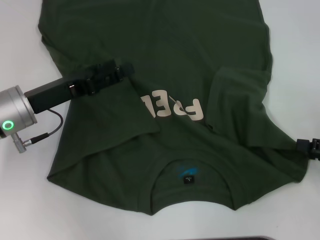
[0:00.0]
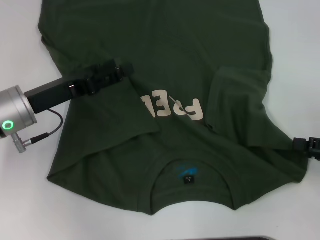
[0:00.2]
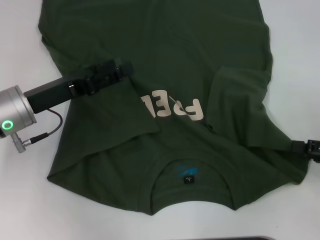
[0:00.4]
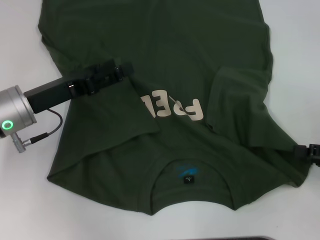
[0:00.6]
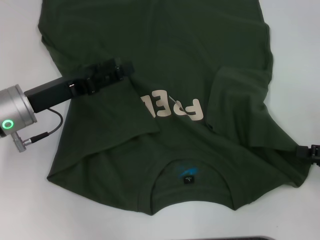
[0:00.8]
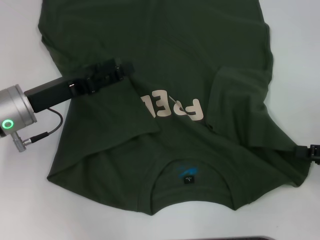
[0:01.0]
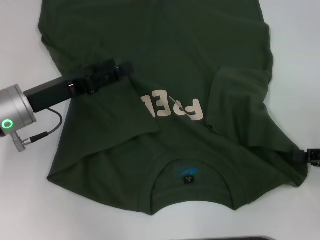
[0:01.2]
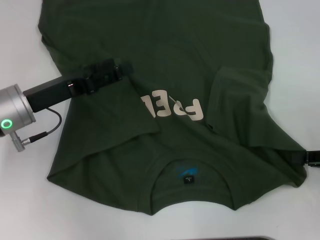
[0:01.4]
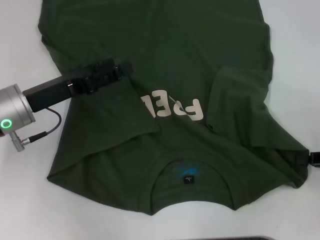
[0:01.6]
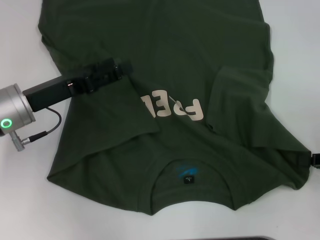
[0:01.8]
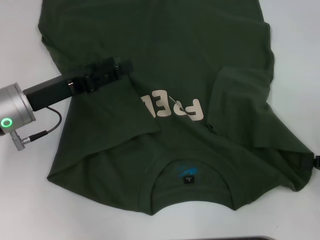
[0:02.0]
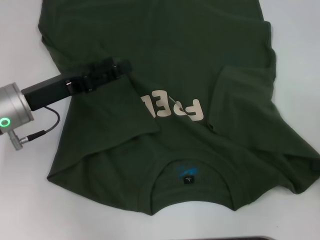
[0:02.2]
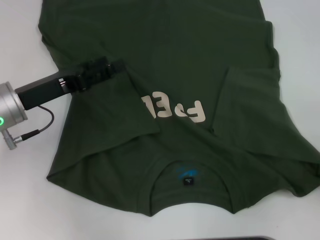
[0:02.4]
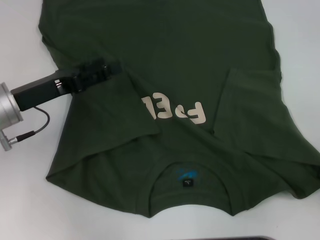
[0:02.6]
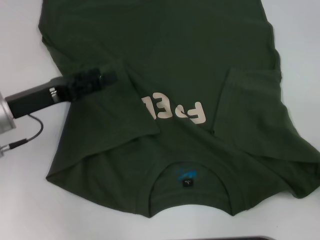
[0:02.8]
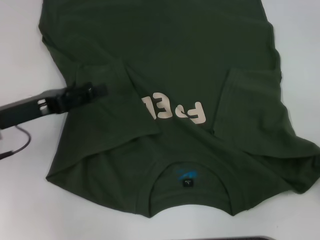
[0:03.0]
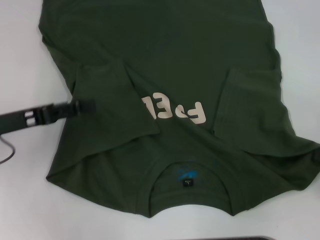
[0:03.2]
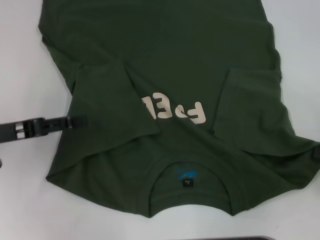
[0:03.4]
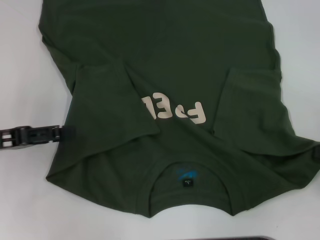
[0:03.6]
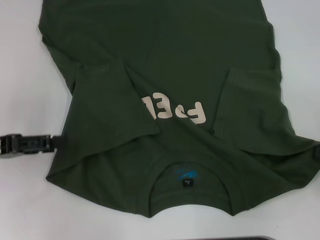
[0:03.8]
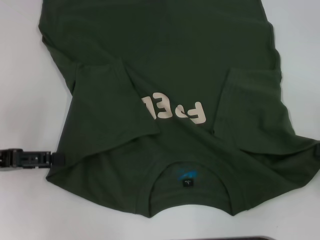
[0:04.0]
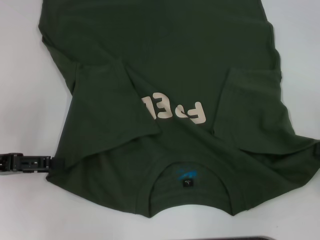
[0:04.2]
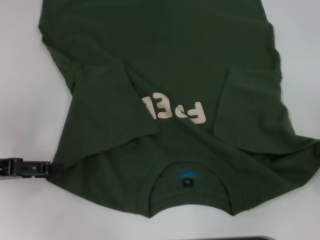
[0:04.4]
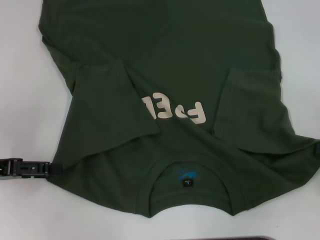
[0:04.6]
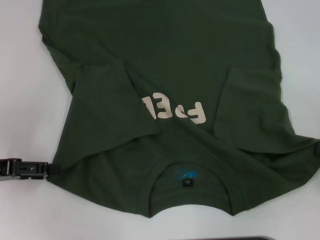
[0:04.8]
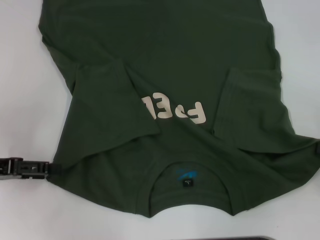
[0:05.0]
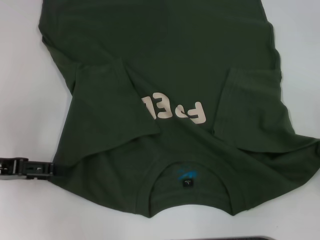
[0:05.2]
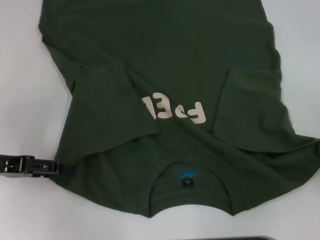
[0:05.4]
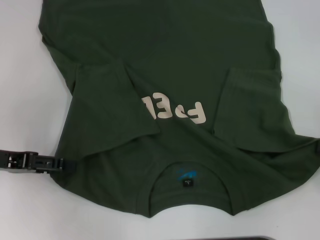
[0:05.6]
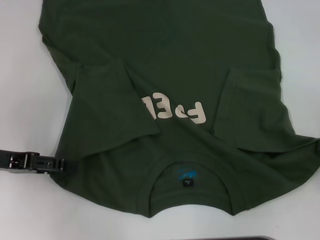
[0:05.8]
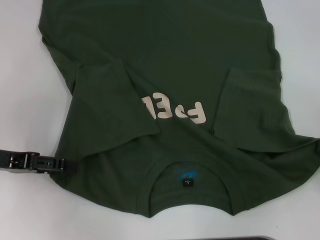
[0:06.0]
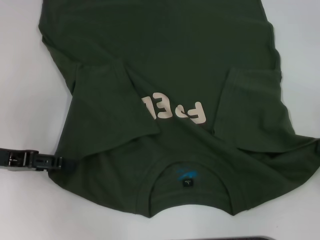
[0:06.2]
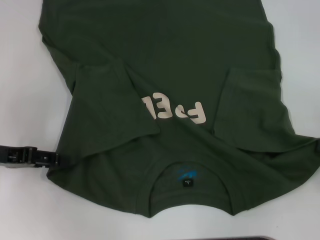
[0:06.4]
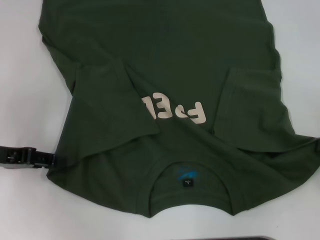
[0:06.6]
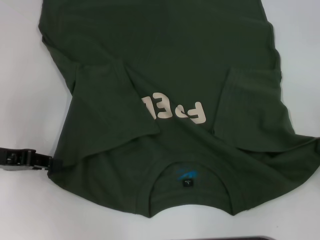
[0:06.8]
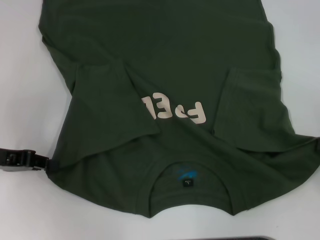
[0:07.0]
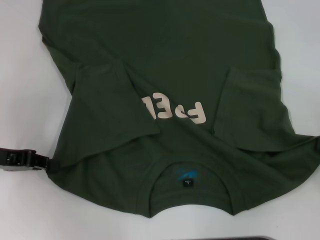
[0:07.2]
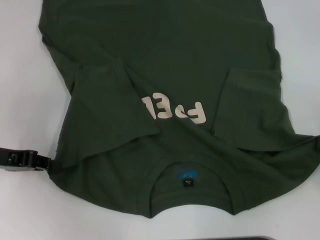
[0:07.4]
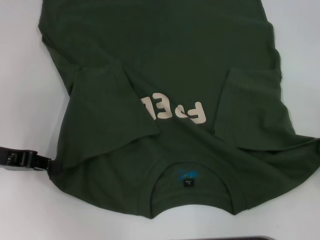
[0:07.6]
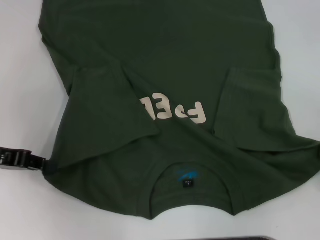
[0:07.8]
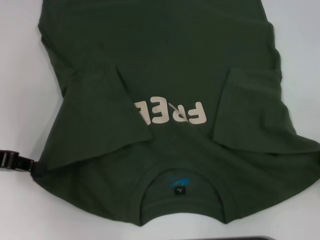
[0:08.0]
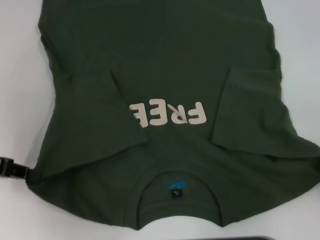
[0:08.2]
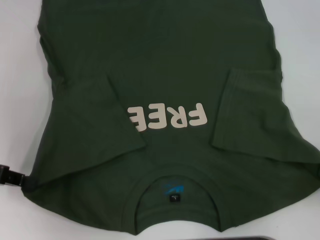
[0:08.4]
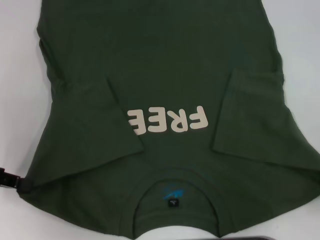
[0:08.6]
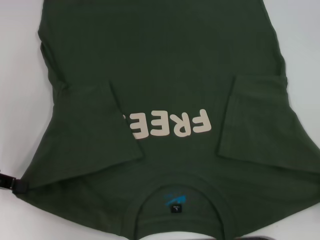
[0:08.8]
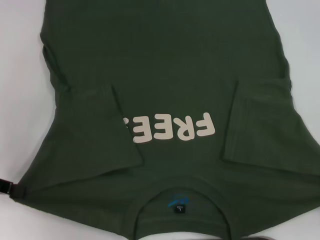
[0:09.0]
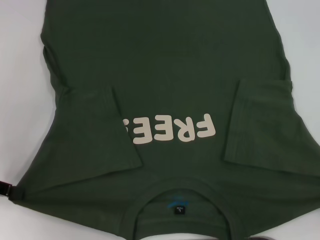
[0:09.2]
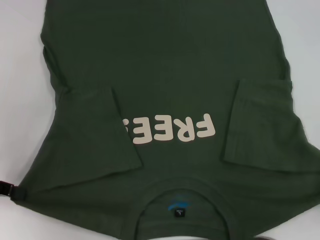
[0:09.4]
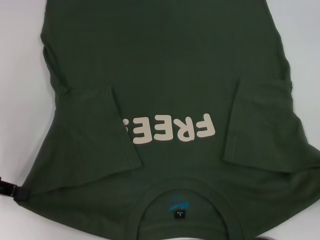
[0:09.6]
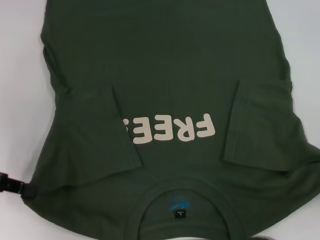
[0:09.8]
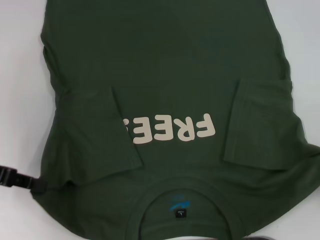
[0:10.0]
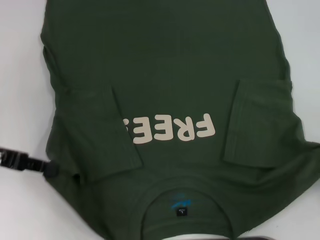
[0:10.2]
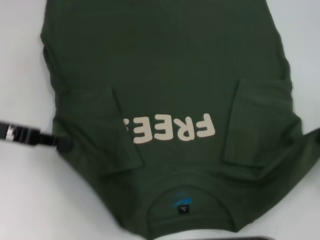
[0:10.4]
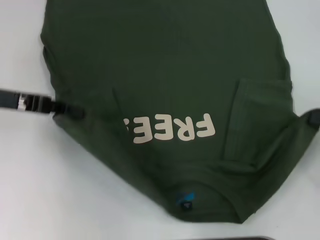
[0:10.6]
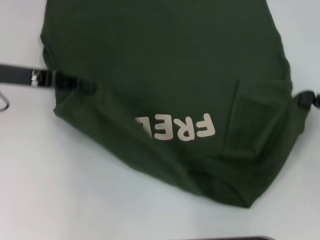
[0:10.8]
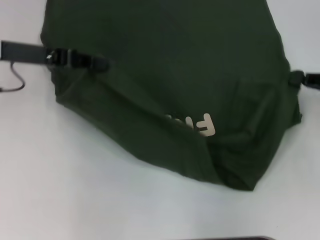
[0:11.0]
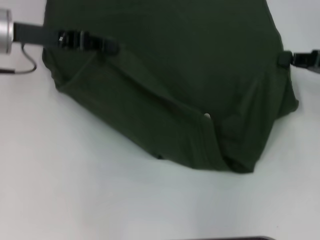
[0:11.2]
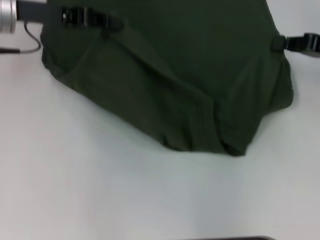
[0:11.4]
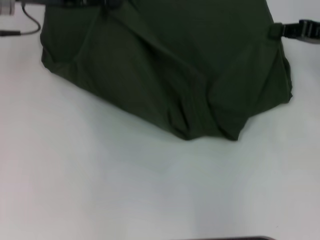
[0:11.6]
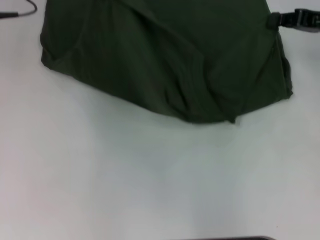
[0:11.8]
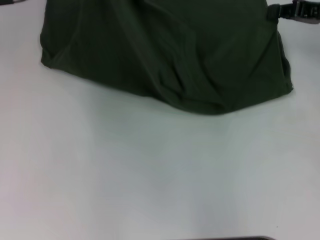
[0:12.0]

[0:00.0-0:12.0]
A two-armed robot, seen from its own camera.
Step, 0:00.0 to 0:04.8: Grab the bottom right corner with your right hand.
Step, 0:05.0 to 0:08.2: Grab the bottom left corner with your left hand.
0:00.0 to 0:01.6: The right gripper closes.
0:01.6 to 0:03.0: The grippers stay close to where they were, moving slightly.
0:03.0 to 0:04.4: The left gripper heads to the left, covering roughly 5 cm.
0:04.4 to 0:06.0: The grippers stay close to where they were, moving slightly.
0:06.0 to 0:07.6: The left gripper closes up.
0:07.6 to 0:09.0: The left gripper moves roughly 5 cm. The right gripper shifts about 10 cm backward.
0:09.0 to 0:10.4: The right gripper moves forward, about 5 cm. Meanwhile the left gripper travels to the right by approximately 5 cm.
0:10.4 to 0:12.0: The left gripper goes roughly 15 cm forward, upward and to the right, while the right gripper goes about 20 cm forward.

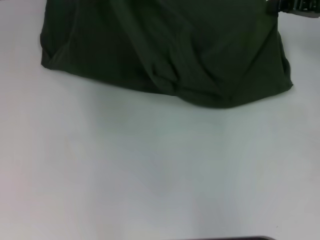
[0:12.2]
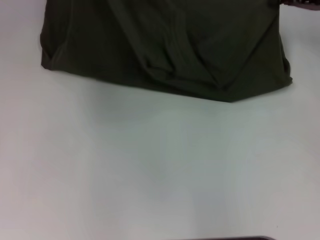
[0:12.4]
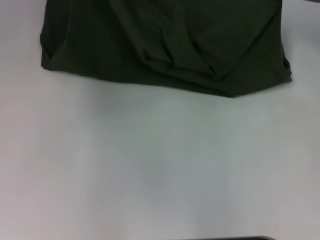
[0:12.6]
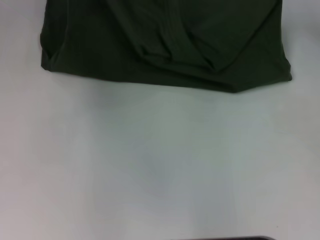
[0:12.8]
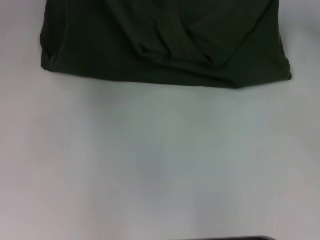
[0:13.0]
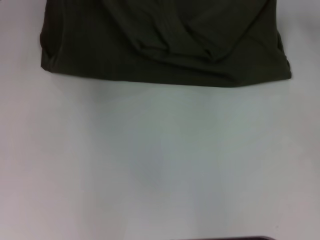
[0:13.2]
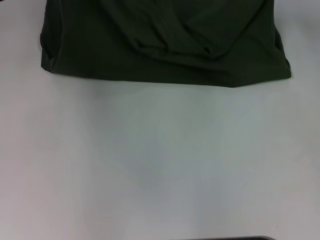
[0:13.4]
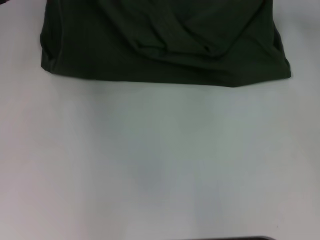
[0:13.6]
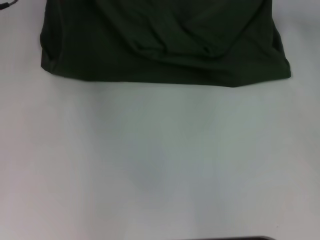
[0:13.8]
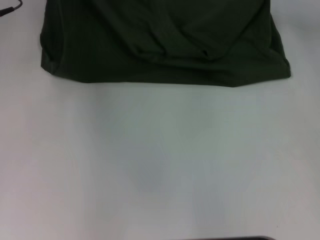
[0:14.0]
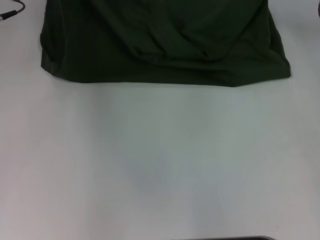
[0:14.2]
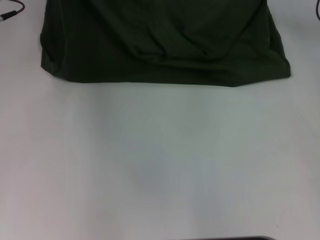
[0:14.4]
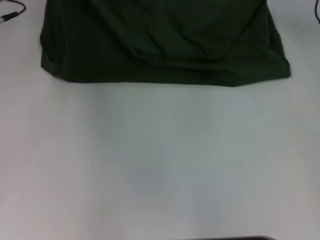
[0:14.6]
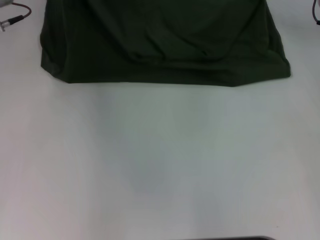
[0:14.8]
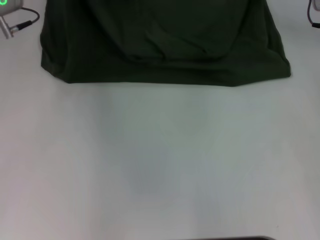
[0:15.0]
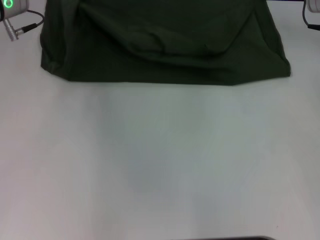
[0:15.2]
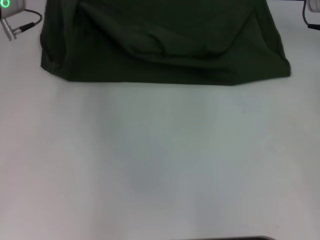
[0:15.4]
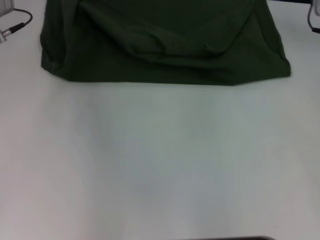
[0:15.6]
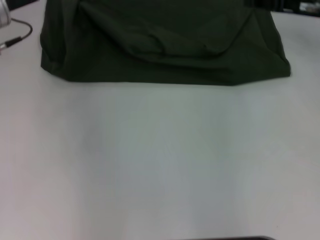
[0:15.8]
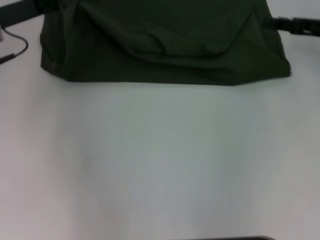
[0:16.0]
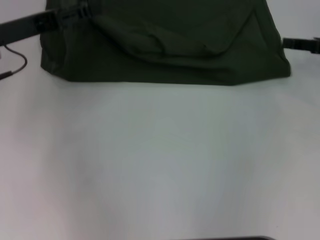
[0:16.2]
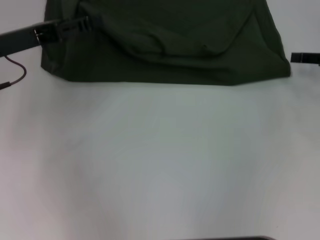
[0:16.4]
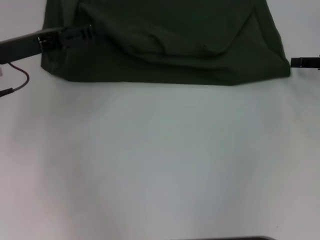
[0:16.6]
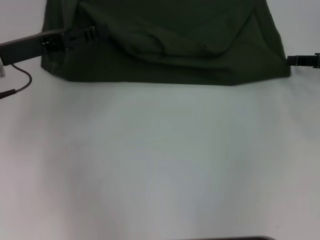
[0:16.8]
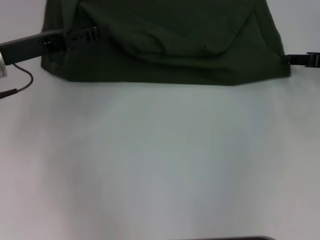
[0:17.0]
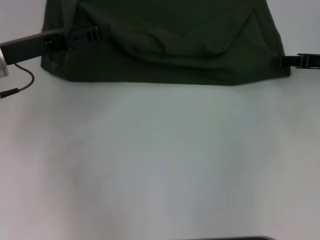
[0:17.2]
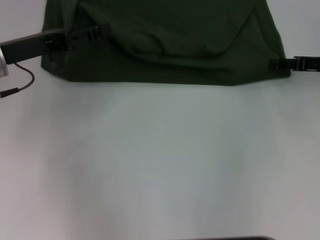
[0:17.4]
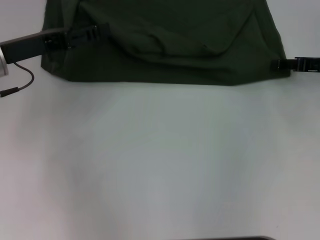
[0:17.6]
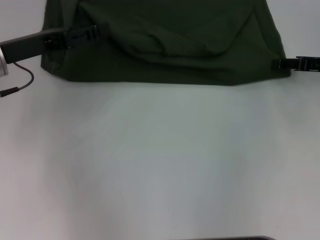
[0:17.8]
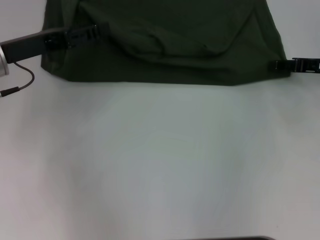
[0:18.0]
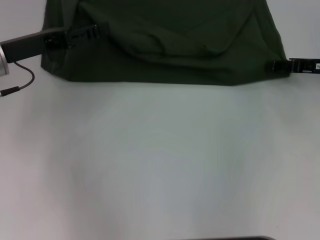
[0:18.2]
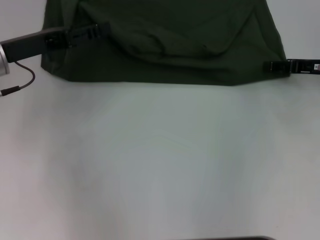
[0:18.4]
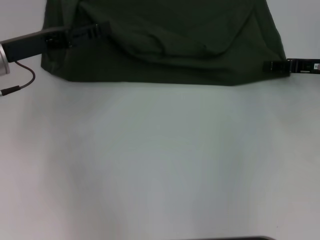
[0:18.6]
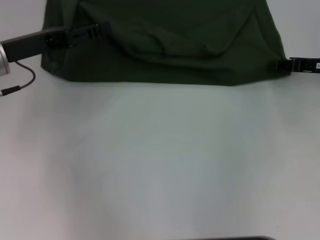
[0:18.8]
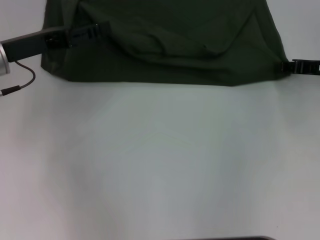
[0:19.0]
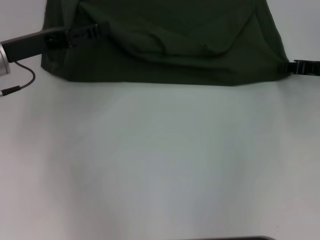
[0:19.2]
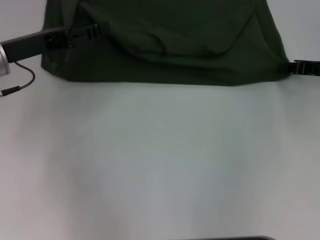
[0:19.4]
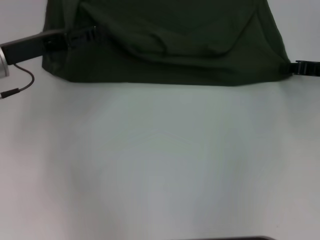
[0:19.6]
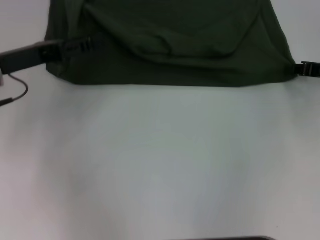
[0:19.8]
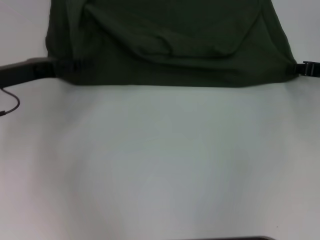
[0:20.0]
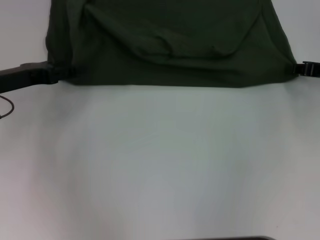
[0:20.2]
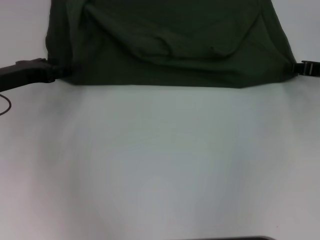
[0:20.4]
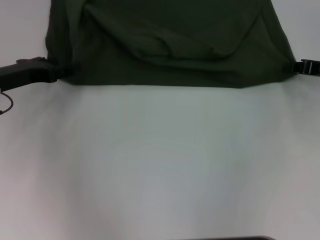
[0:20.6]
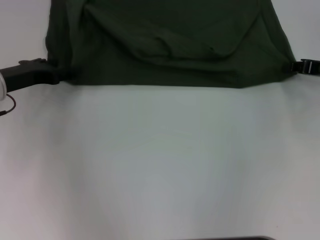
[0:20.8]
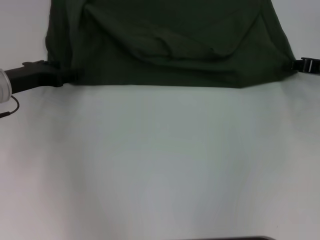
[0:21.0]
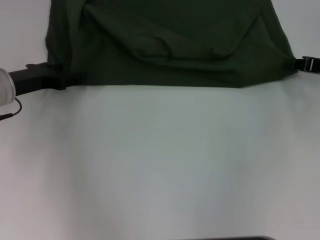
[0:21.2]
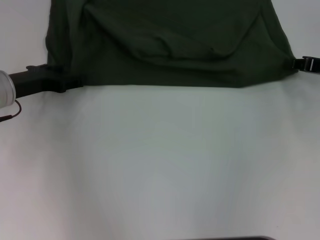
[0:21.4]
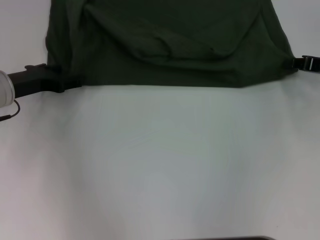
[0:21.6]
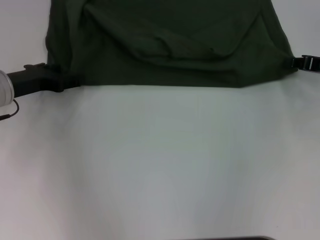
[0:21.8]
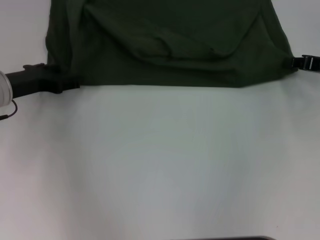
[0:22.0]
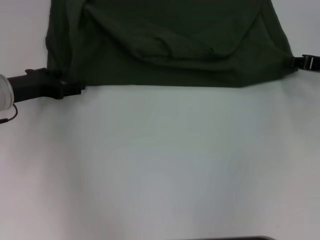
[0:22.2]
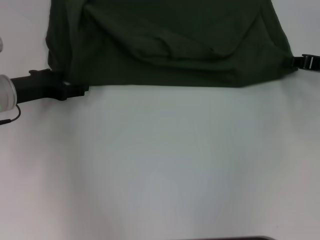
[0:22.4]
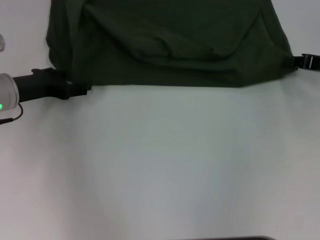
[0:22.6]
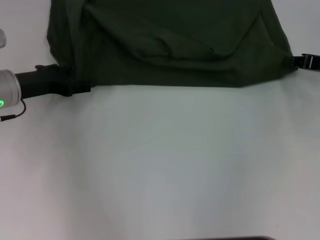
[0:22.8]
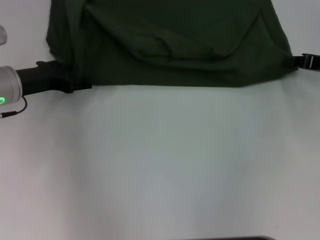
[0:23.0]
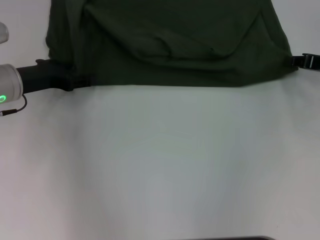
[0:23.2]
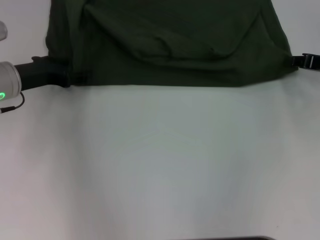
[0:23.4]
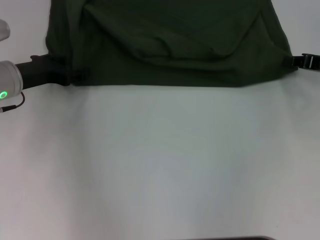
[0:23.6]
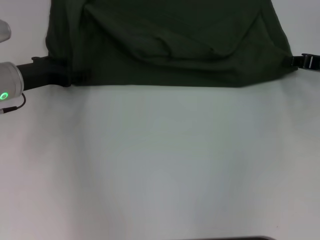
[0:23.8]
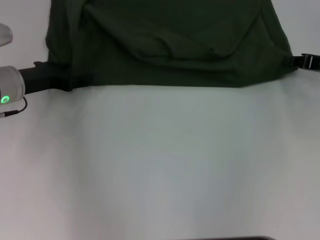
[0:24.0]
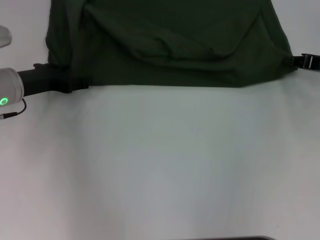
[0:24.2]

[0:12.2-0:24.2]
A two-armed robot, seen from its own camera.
Step, 0:12.2 to 0:15.6: Fold the clothes with your left hand.
Step, 0:12.2 to 0:15.6: Fold the clothes with your right hand.
0:12.2 to 0:13.8: The grippers stay close to where they were, moving slightly.
0:13.8 to 0:15.2: The grippers move only a little.
0:15.2 to 0:16.6: The right gripper moves to the right and backward, about 15 cm, and opens up, while the left gripper is displaced backward by about 10 cm, and opens up.
0:16.6 to 0:18.2: There are only small adjustments of the grippers.
0:18.2 to 0:19.8: The right gripper closes up.
0:19.8 to 0:21.2: The left gripper ends up roughly 5 cm from where it was.
0:21.2 to 0:24.2: The grippers move only a little.
